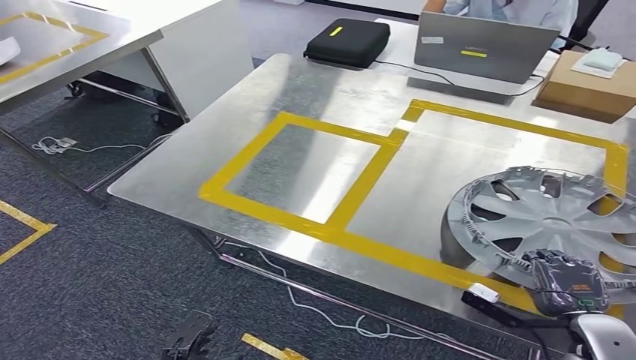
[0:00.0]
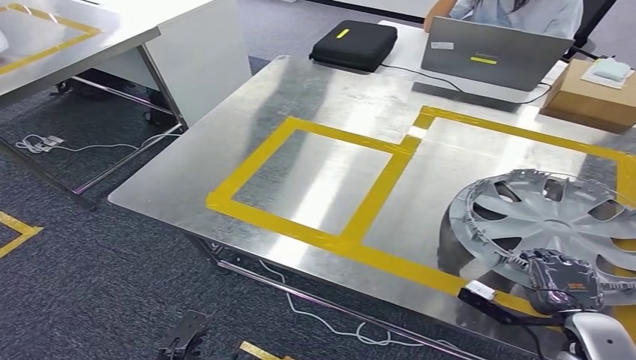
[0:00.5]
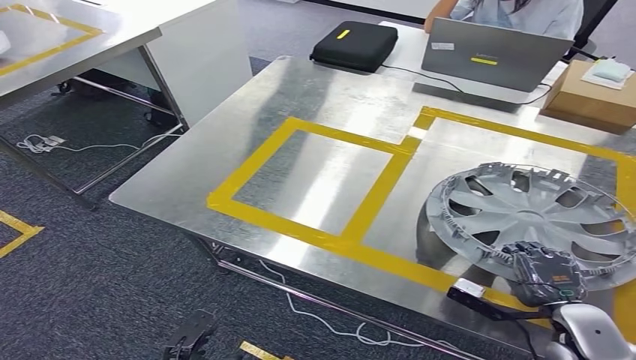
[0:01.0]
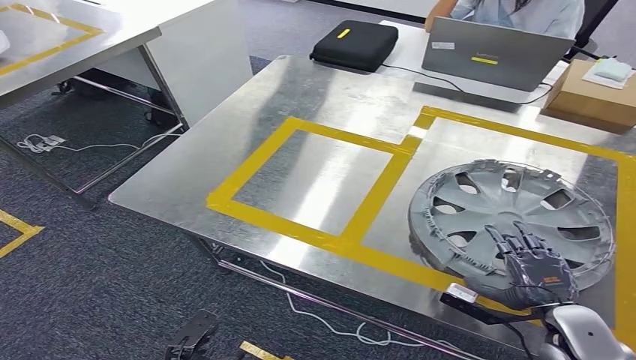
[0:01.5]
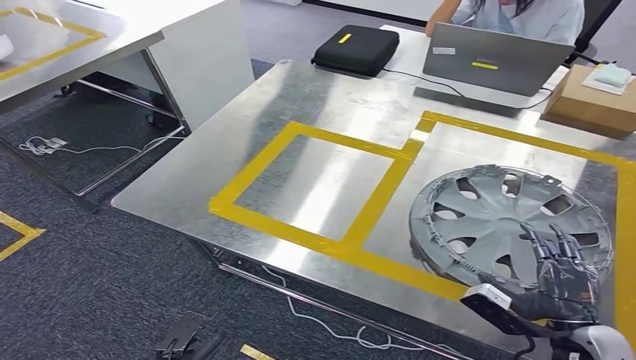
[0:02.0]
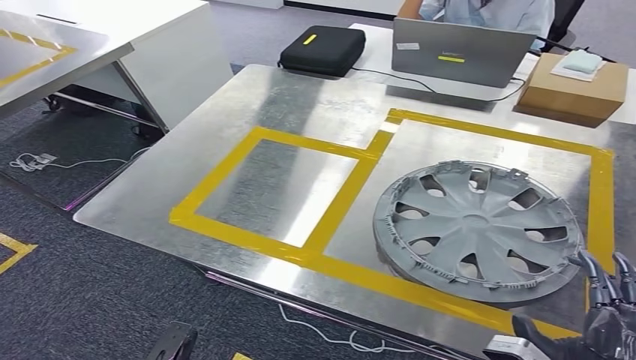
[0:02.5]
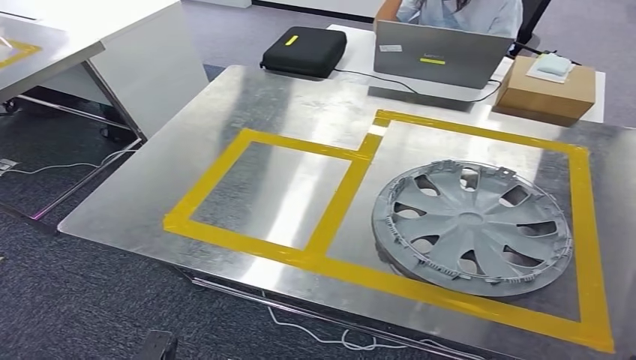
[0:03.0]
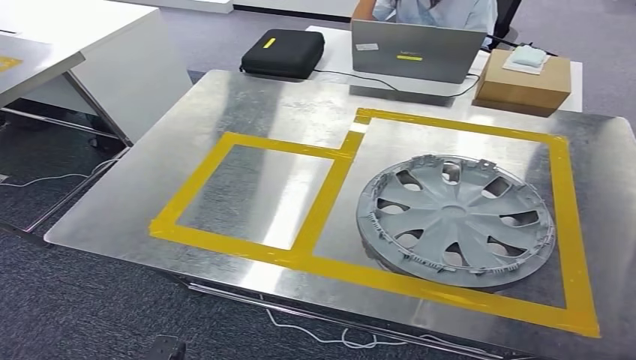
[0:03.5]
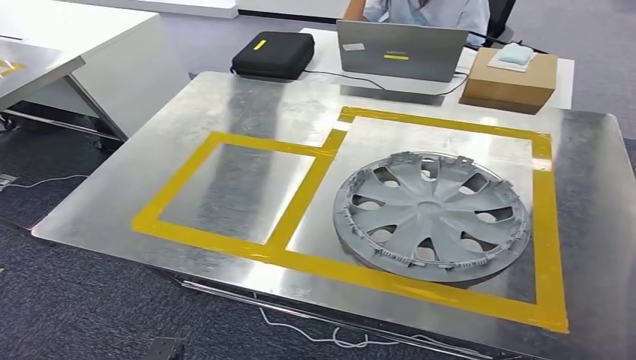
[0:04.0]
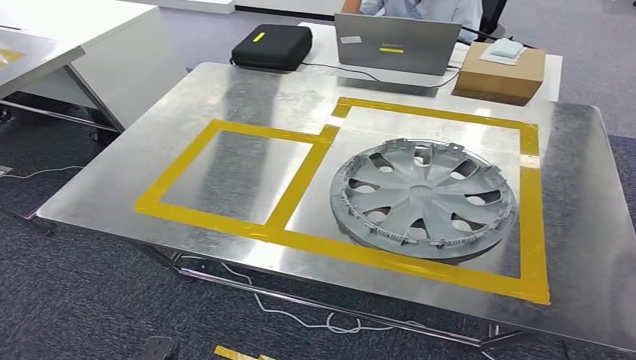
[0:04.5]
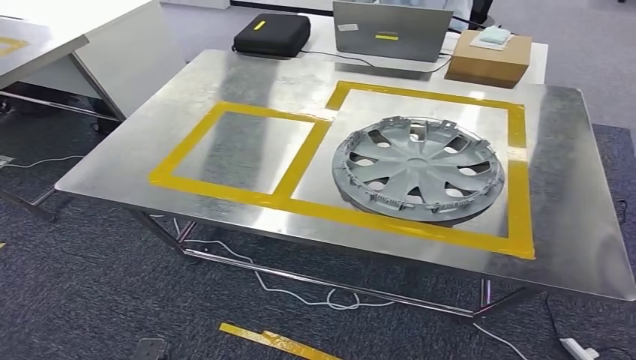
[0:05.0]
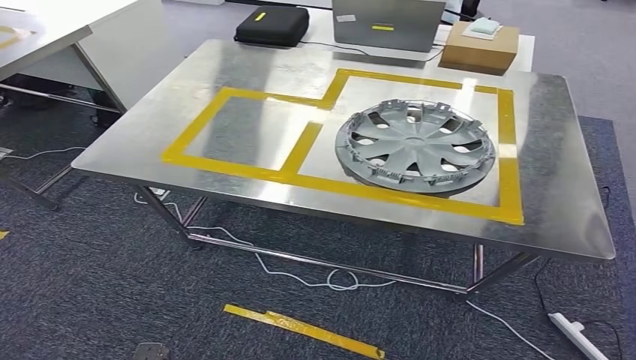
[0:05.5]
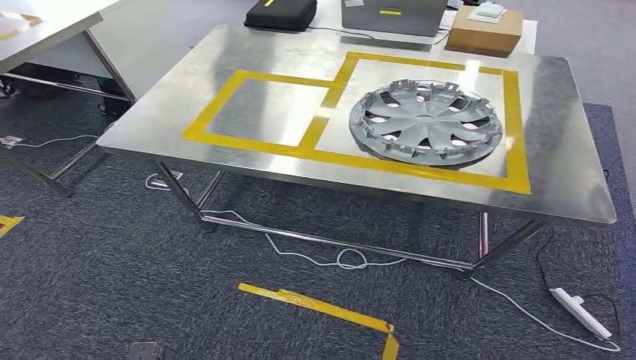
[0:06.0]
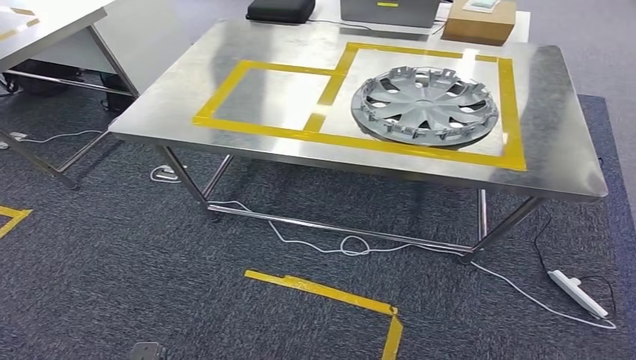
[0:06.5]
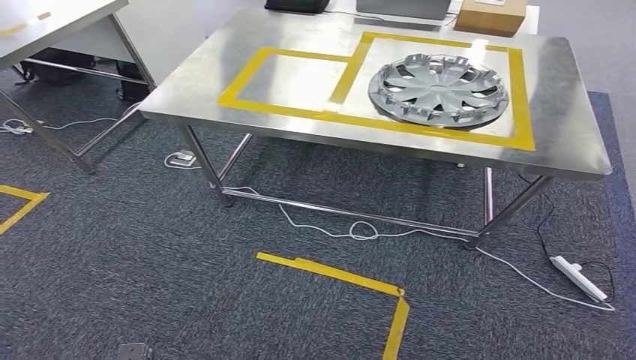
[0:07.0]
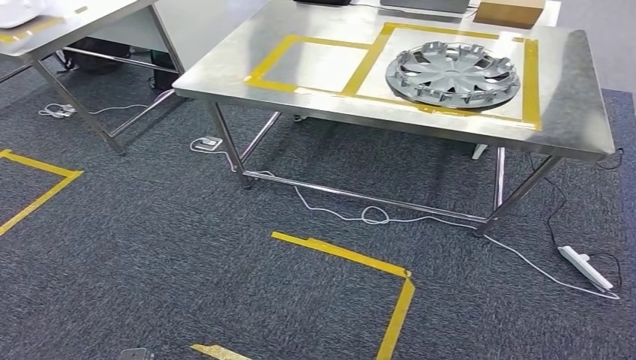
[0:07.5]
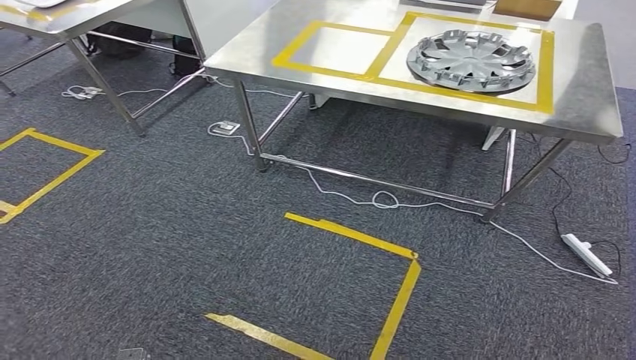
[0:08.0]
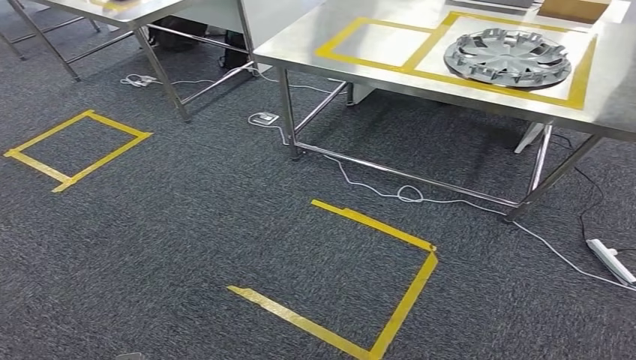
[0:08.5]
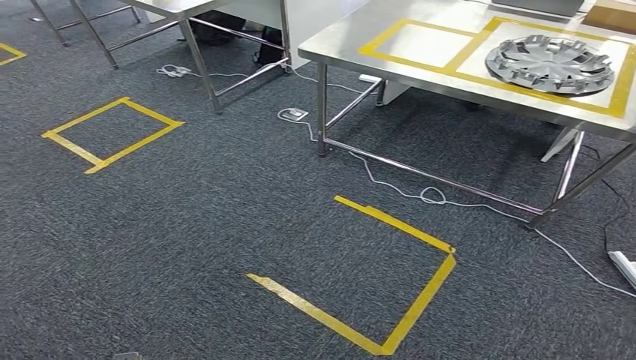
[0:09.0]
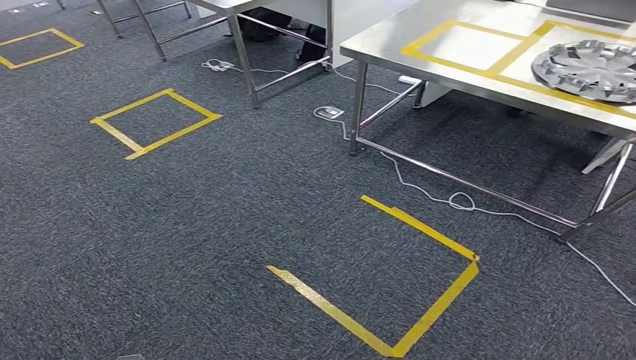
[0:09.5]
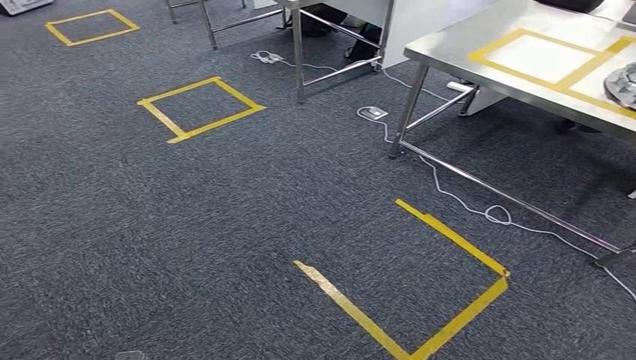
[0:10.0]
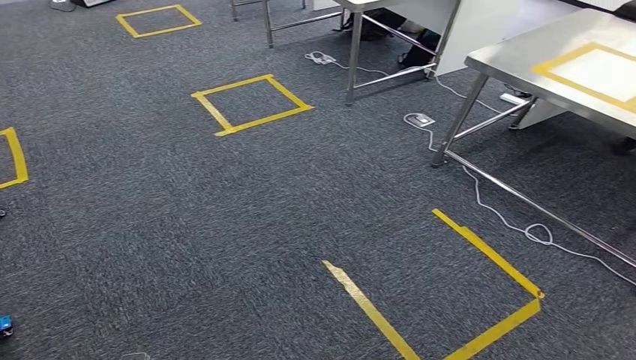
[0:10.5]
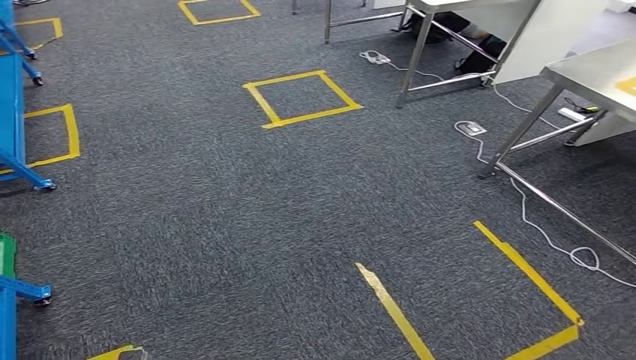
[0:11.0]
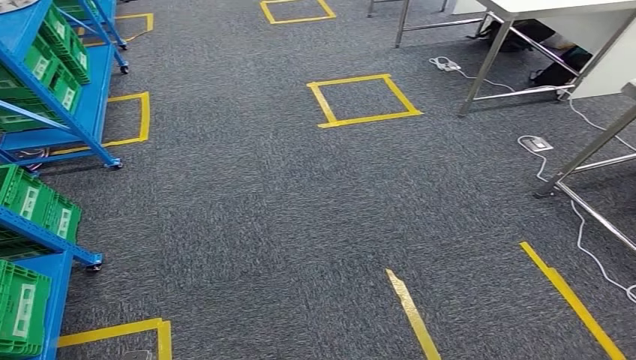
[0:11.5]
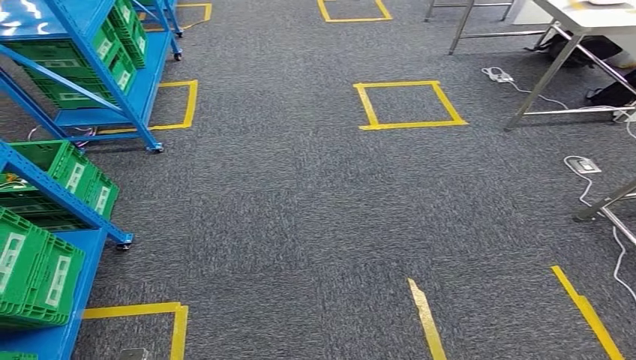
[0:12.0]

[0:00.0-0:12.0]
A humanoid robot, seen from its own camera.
Step, 0:00.0 to 0:09.5: Insert the small parts into the corresponding holes on the workbench.

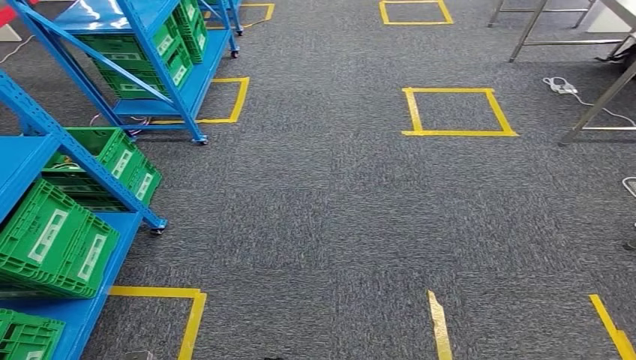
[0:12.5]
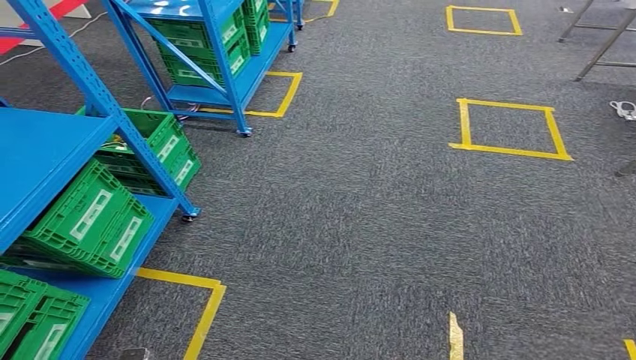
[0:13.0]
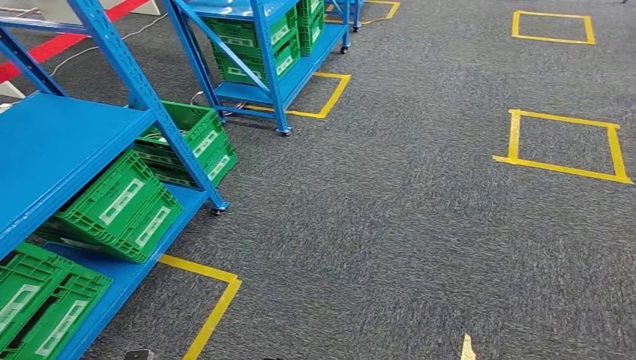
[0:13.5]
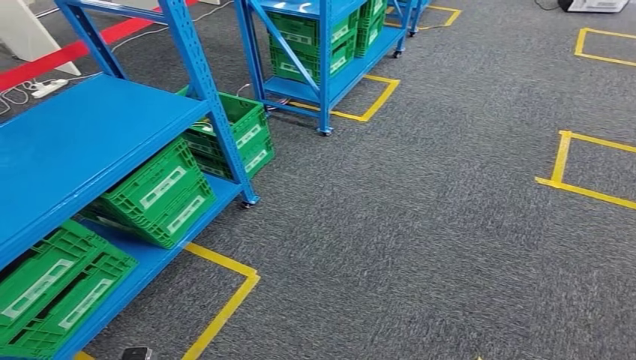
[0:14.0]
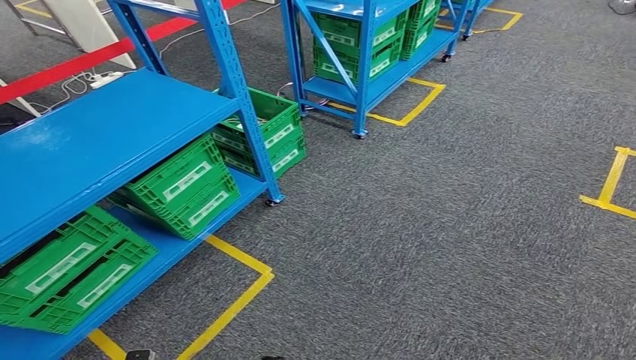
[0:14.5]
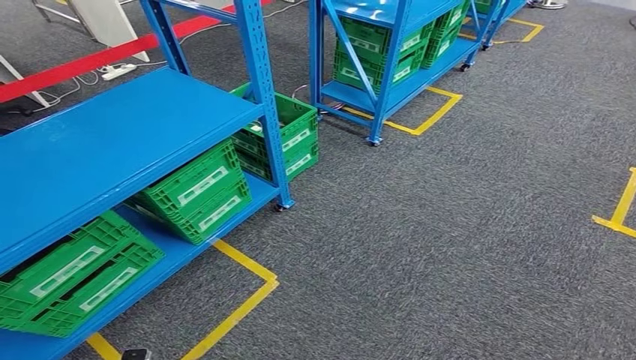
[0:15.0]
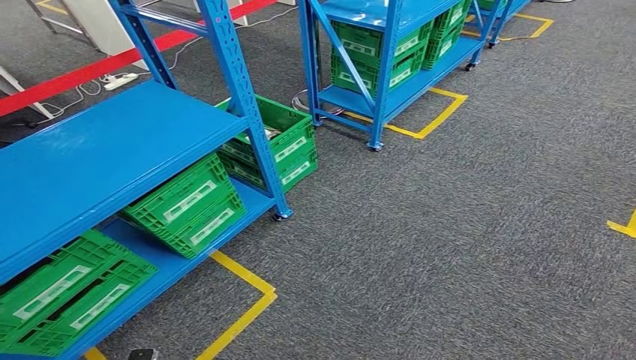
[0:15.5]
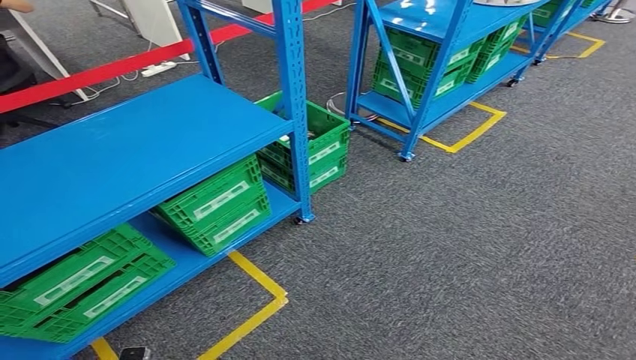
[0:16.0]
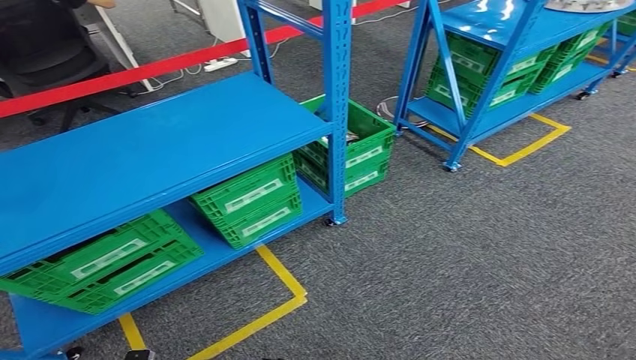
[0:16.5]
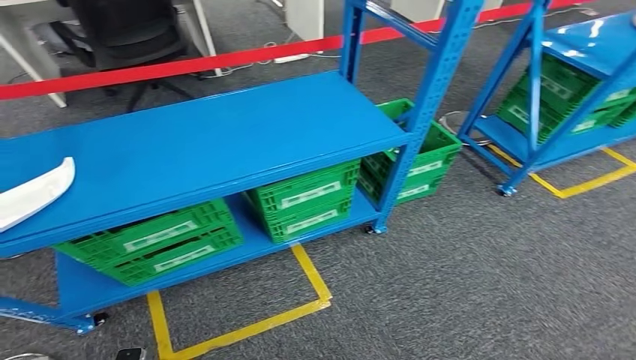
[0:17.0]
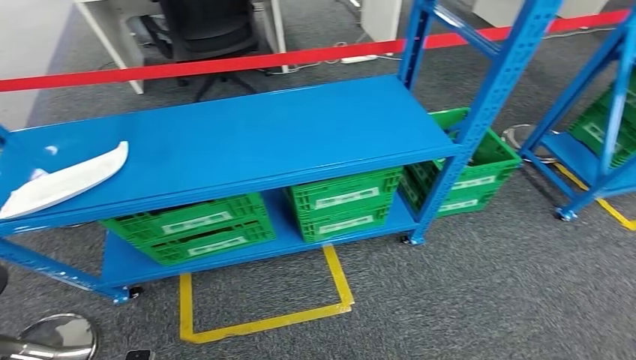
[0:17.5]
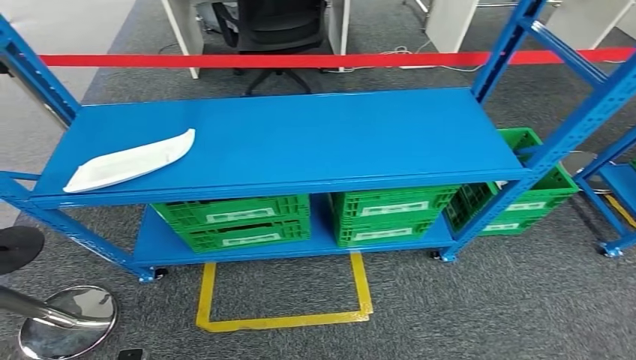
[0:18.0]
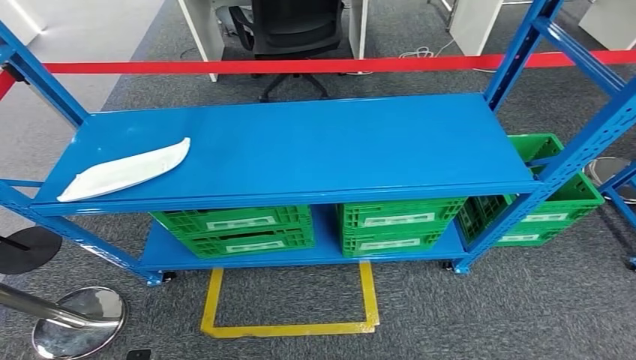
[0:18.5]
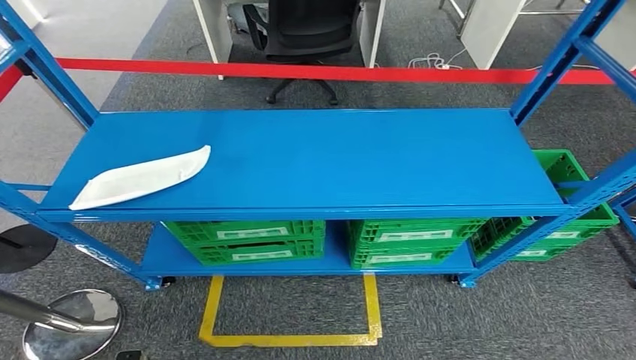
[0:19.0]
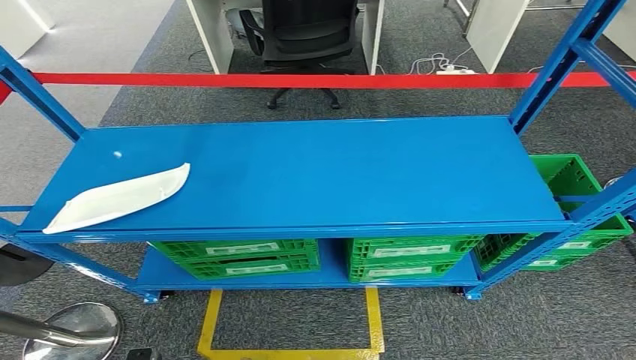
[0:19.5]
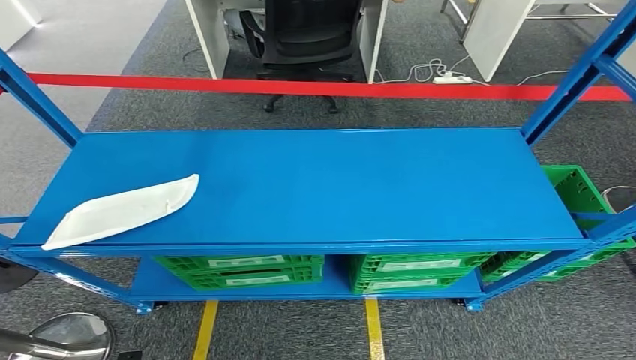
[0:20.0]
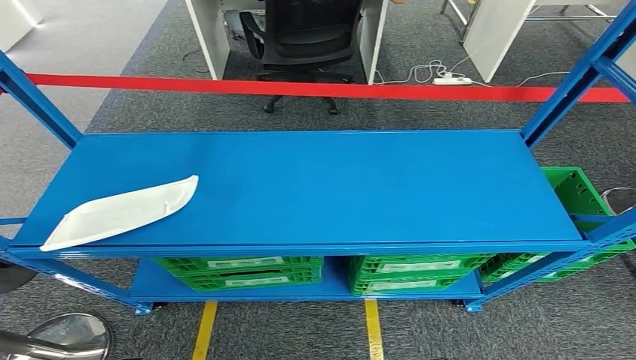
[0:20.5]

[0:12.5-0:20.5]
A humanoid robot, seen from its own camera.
Step, 0:12.5 to 0:20.5: Move to the initial position of the workbench.
